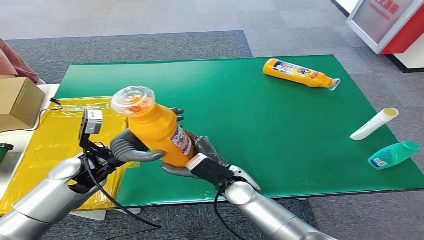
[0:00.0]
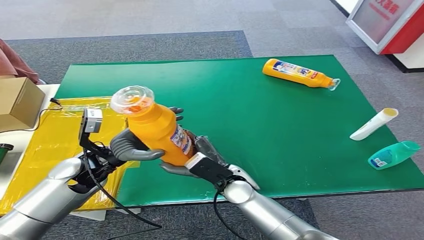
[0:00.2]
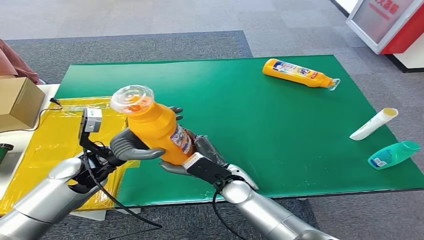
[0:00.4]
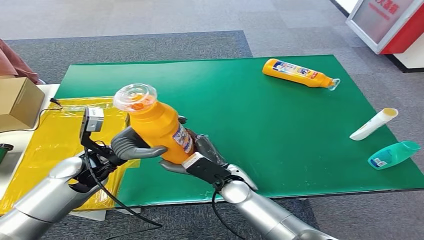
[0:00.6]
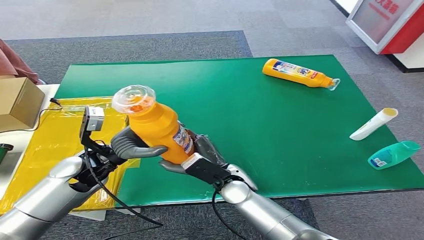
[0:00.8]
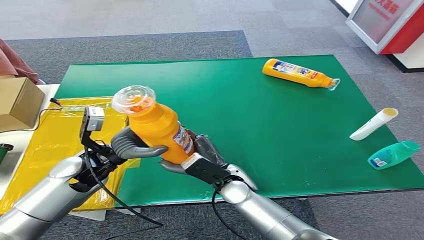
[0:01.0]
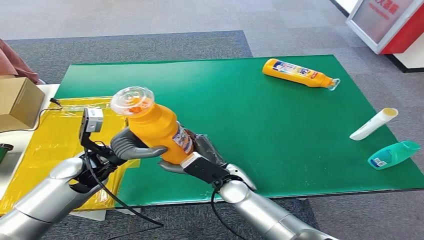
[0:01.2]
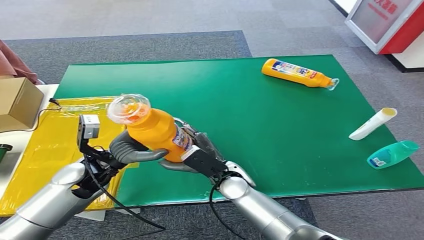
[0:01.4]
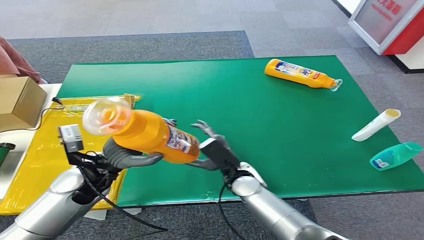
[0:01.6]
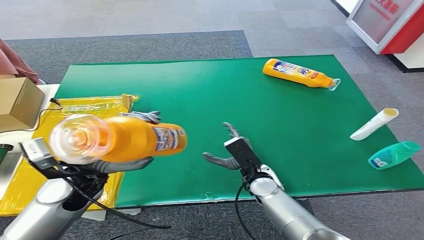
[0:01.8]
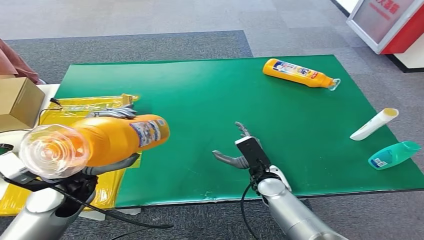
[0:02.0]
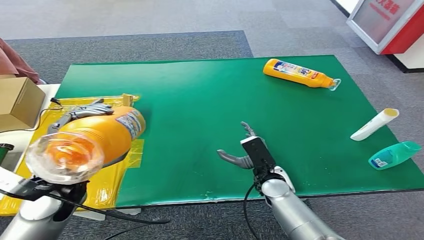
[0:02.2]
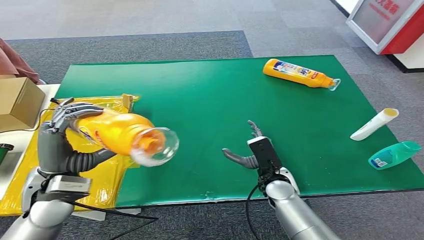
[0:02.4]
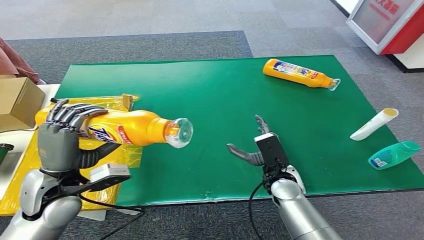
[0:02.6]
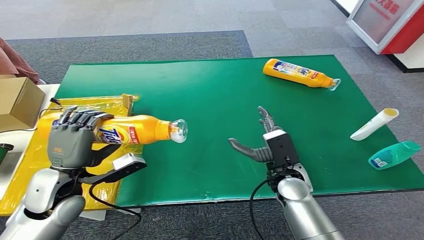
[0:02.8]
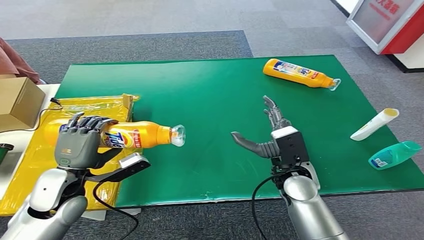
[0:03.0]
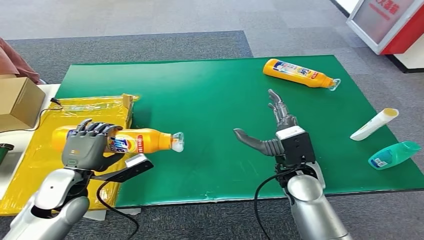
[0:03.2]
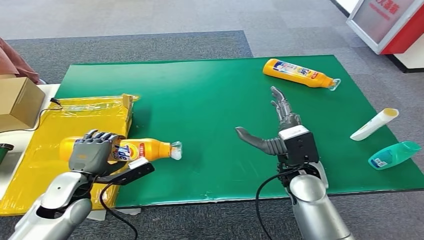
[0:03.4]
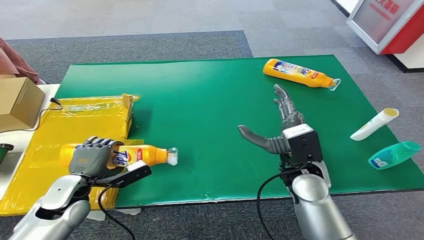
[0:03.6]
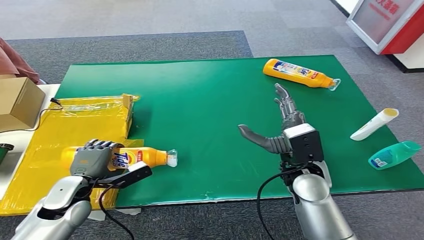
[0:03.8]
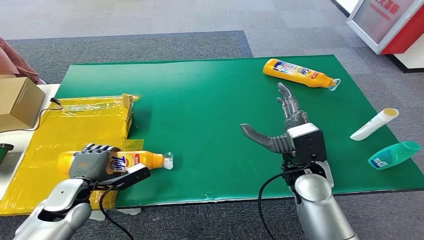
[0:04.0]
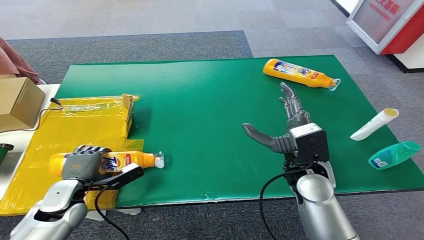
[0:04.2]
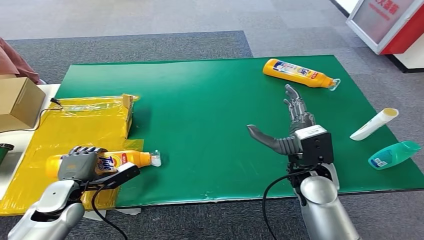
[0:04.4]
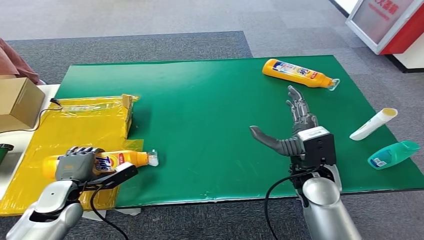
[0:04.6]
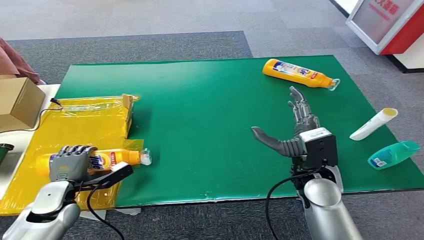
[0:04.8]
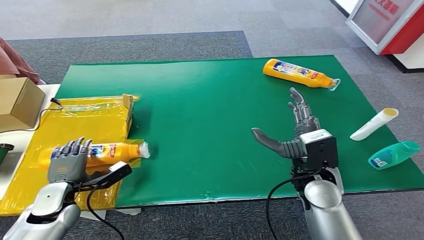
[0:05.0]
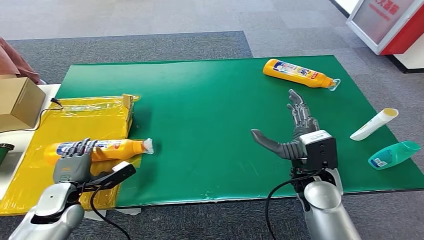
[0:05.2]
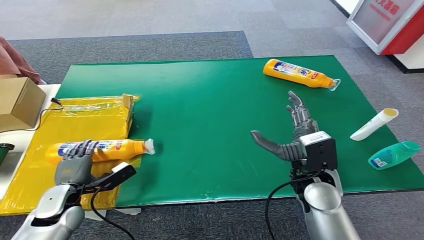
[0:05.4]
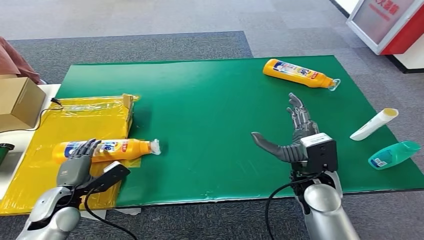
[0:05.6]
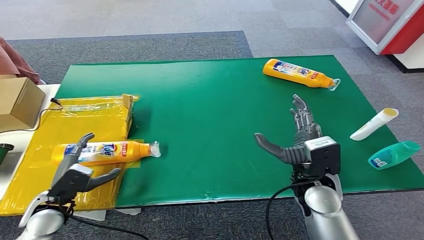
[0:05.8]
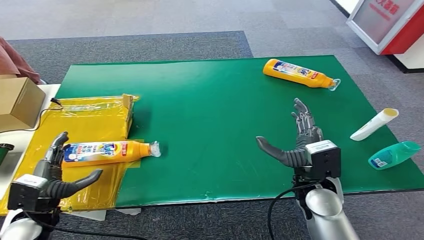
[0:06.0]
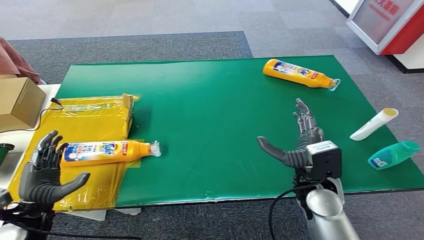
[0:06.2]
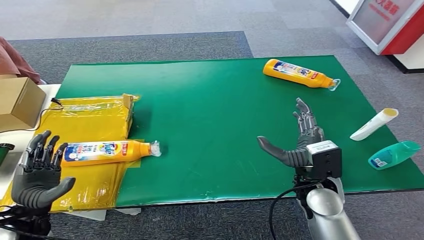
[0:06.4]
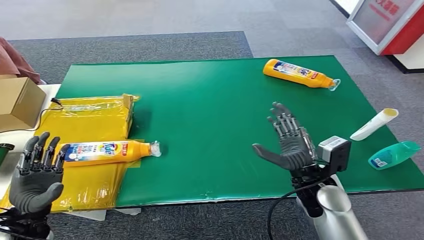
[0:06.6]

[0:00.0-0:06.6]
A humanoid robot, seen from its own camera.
Step, 0:00.0 to 0:06.4: Turn the bottle to the front side.
0:00.0 to 0:01.6: The hands make only small movements.
0:03.2 to 0:05.0: The left hand travels downward and to the left by some 10 cm.
0:05.0 to 0:06.6: The left hand is displaced backward by some 5 cm.
